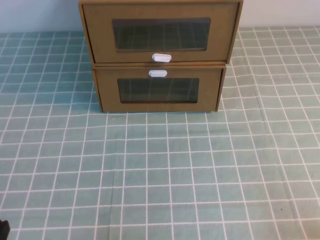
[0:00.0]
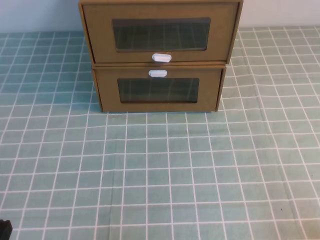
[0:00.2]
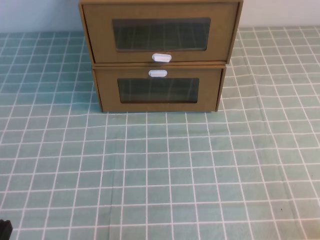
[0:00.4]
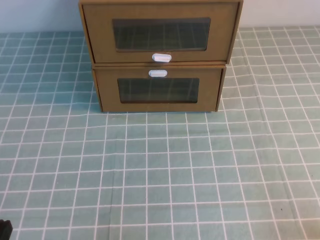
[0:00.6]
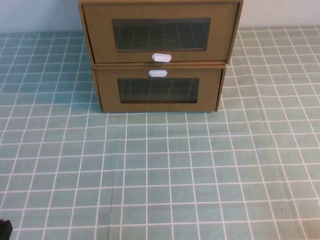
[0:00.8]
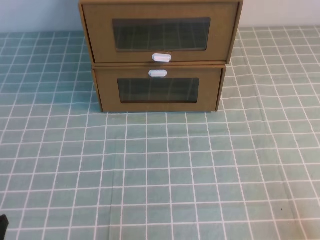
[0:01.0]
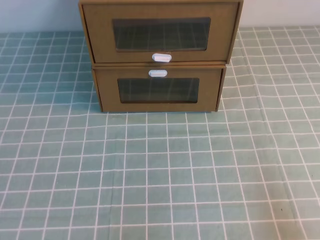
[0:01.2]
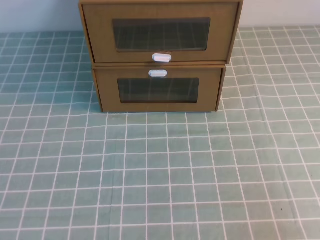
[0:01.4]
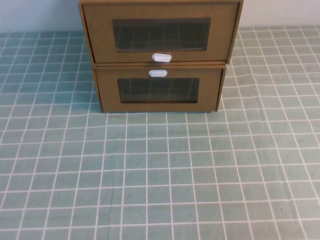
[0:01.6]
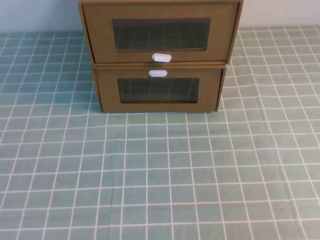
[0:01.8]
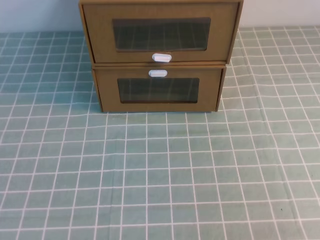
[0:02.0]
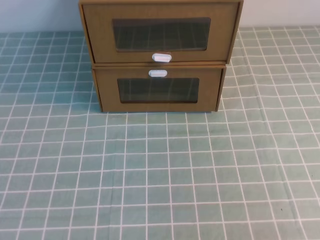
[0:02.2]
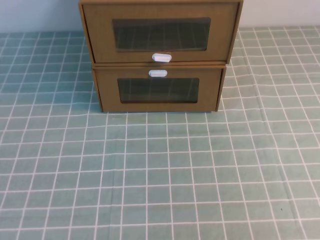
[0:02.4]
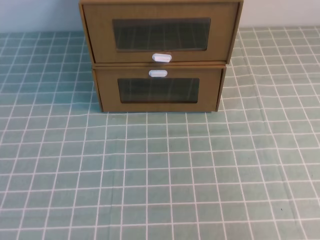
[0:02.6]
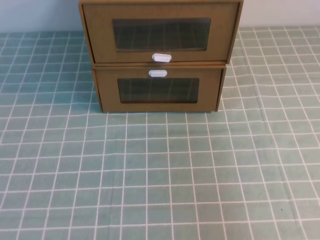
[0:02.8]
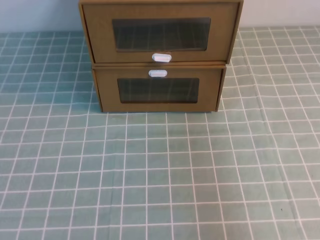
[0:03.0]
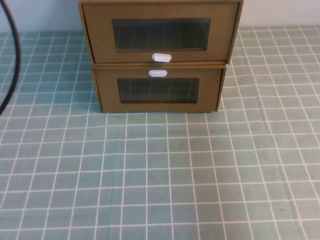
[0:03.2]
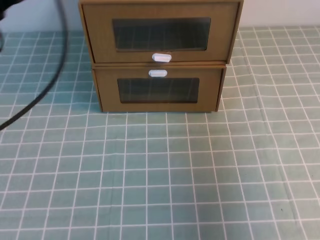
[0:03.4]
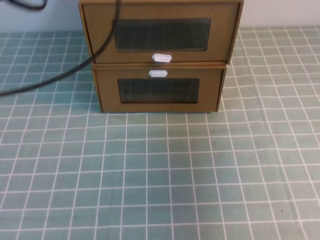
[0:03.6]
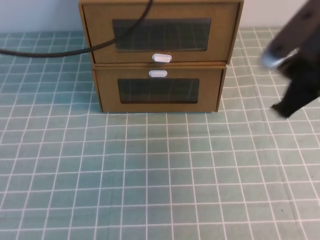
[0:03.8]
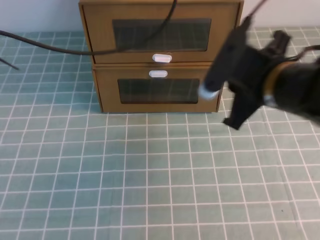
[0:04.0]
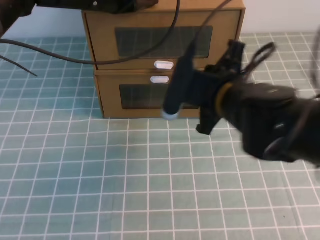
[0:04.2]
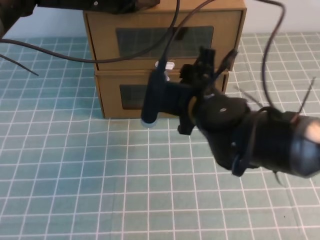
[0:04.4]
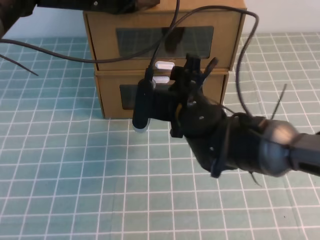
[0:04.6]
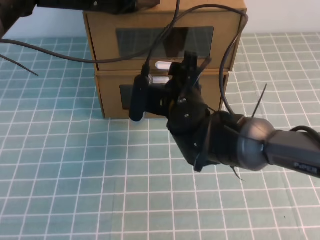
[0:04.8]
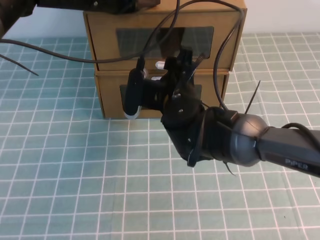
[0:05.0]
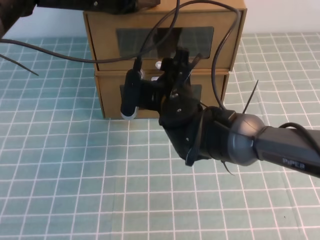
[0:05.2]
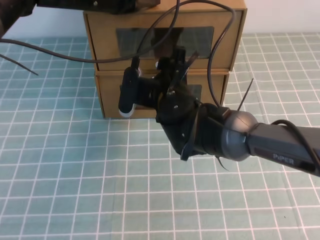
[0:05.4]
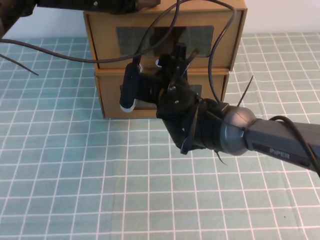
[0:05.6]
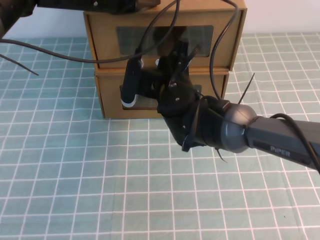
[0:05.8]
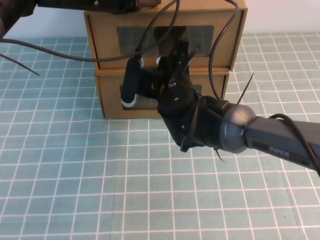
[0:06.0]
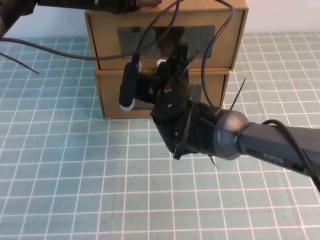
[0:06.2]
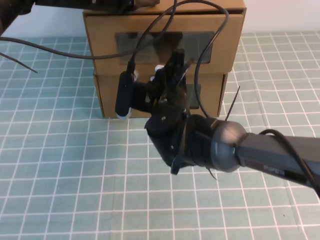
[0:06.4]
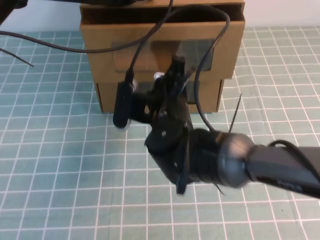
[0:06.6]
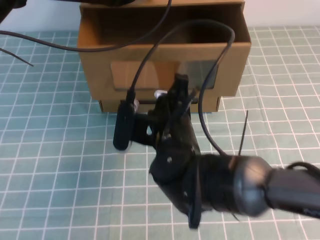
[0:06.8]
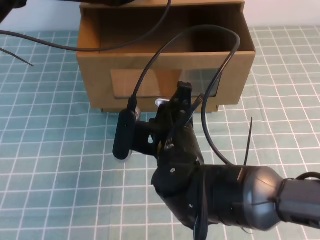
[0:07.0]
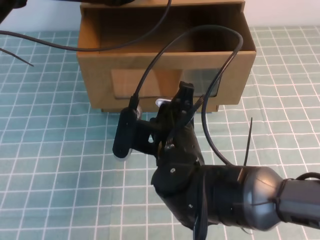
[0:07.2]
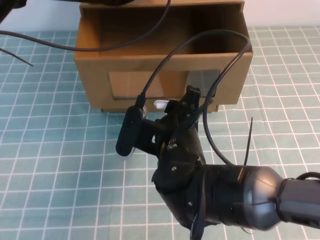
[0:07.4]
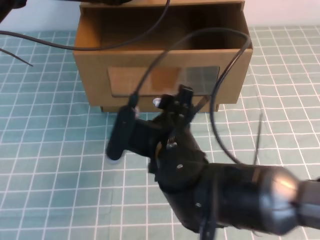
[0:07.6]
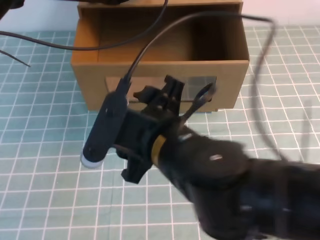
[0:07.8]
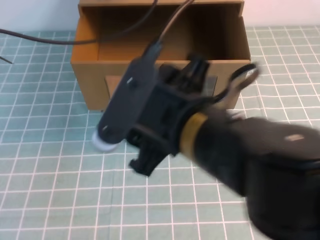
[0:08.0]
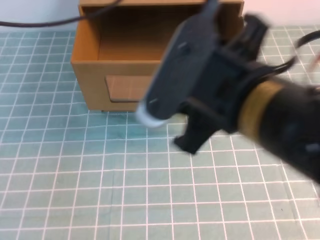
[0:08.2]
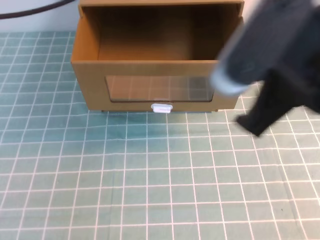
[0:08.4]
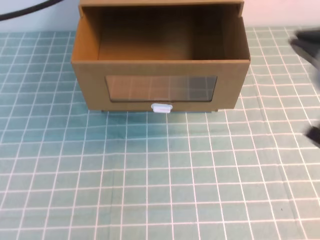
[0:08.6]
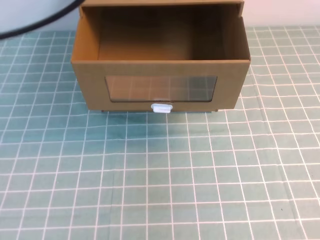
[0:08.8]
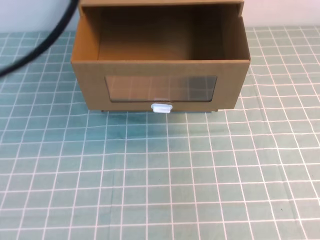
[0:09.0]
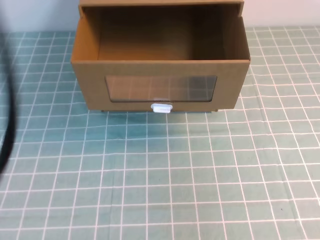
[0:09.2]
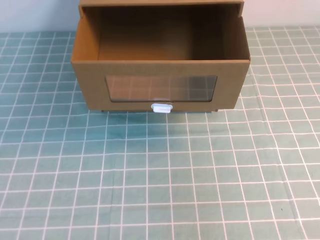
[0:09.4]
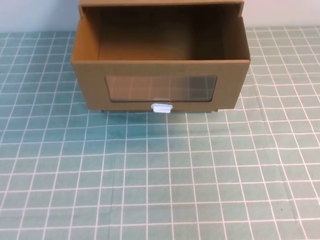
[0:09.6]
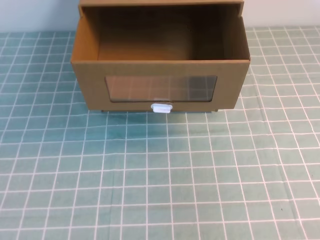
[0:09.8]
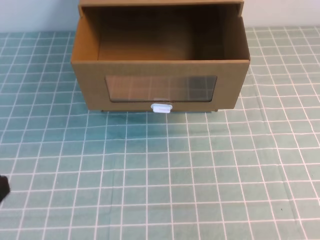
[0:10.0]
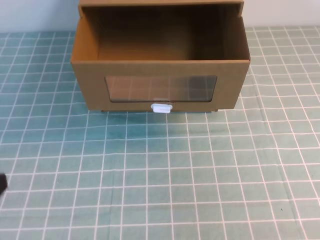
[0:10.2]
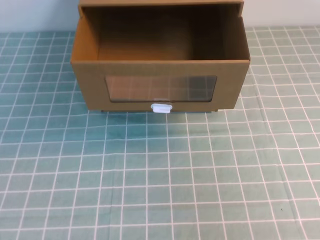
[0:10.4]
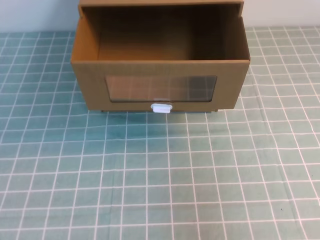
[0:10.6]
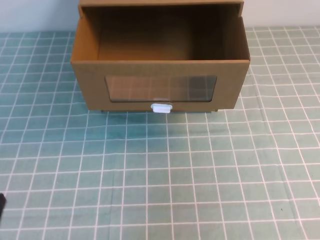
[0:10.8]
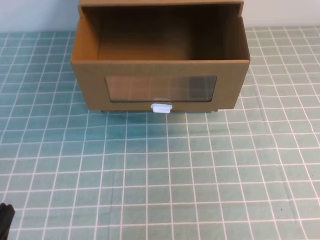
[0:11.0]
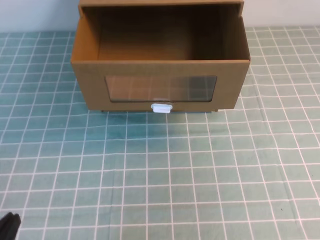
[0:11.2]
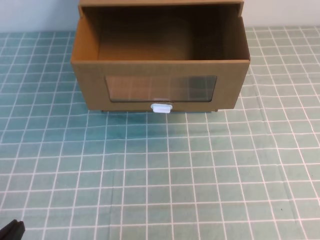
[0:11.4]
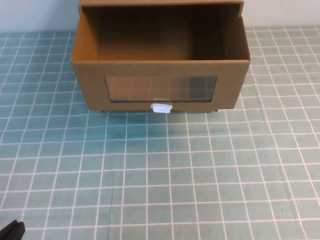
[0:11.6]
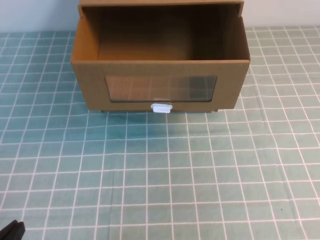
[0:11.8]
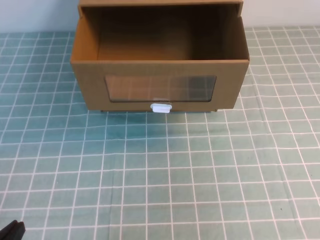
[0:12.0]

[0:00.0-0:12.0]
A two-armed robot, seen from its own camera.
Task of the whole recording: open the shoebox on the cyan tablecloth.
0:03.0 to 0:04.4: The right gripper travels to the left, forward and downward by about 35 cm, and opens up. The left gripper goes approximately 30 cm forward and to the right.
0:04.4 to 0:06.0: The right gripper travels forward and to the left by roughly 10 cm, and closes up.
0:06.0 to 0:07.6: The right gripper moves backward, about 15 cm, and opens up.
0:07.6 to 0:09.0: The left gripper moves backward and upward, approximately 30 cm, while the right gripper heads to the right, backward and upward, covering some 30 cm, and closes.
0:09.0 to 0:10.4: The left gripper goes some 25 cm downward and backward.

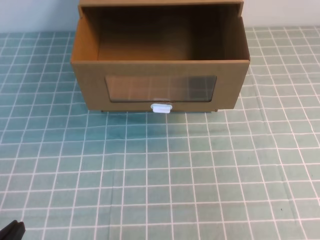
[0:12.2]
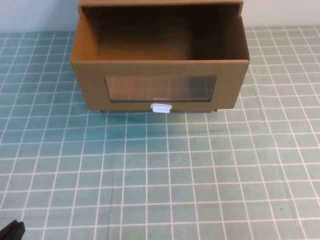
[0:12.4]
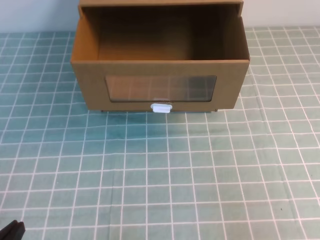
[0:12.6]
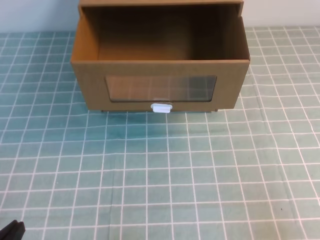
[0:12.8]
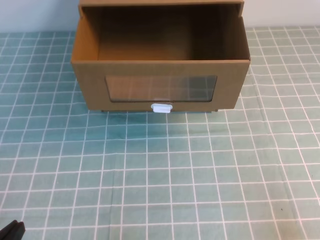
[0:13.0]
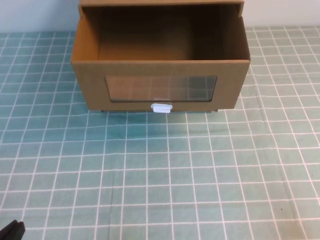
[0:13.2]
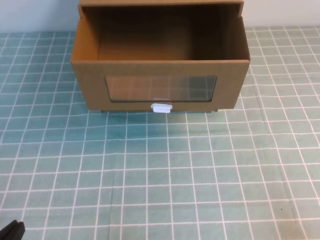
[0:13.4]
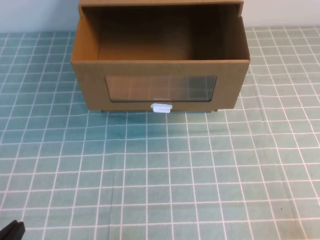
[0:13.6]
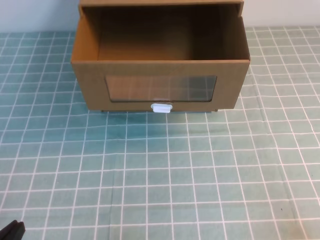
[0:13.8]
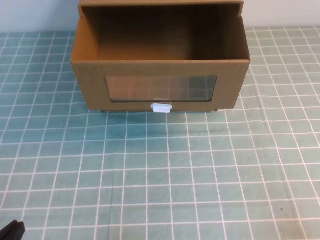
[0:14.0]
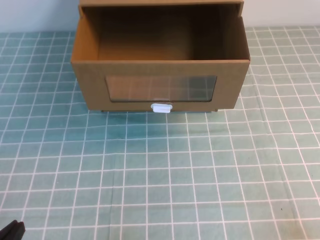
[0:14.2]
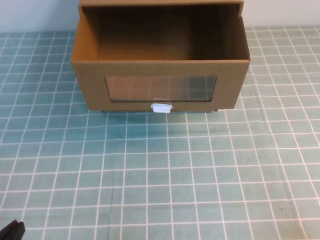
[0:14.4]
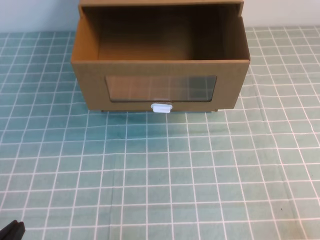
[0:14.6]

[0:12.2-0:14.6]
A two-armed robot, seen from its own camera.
Task of the whole recording: open the shoebox on the cyan tablecloth.
0:12.2 to 0:13.4: The right gripper is displaced downward by some 20 cm.

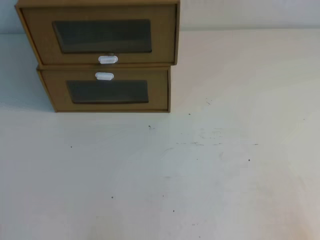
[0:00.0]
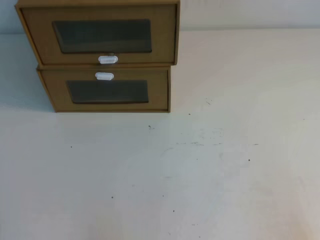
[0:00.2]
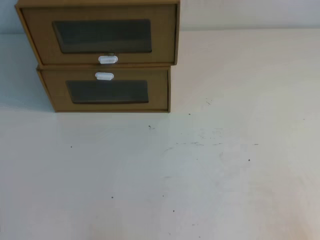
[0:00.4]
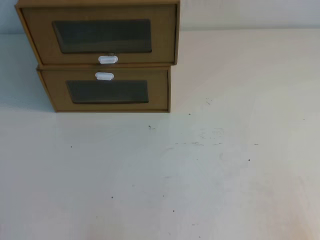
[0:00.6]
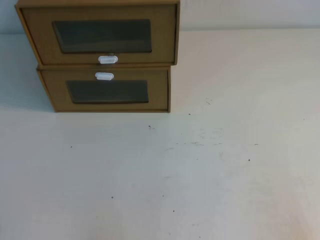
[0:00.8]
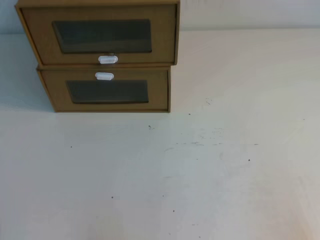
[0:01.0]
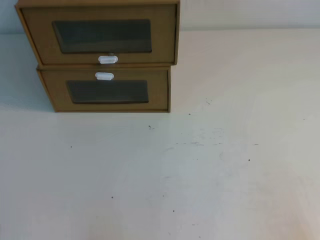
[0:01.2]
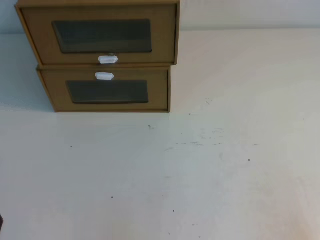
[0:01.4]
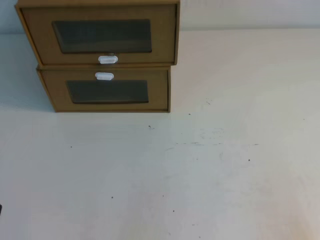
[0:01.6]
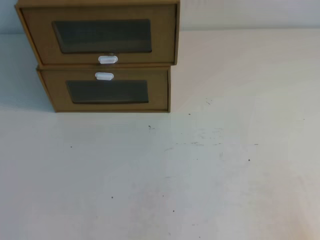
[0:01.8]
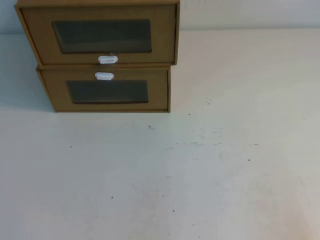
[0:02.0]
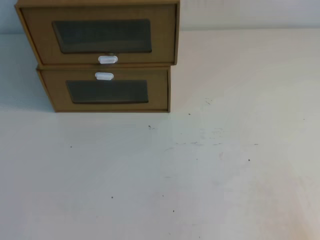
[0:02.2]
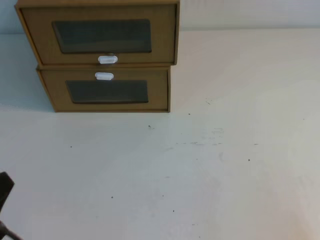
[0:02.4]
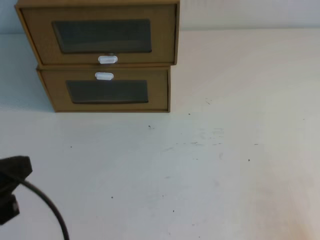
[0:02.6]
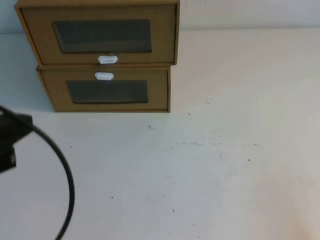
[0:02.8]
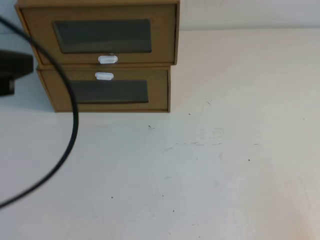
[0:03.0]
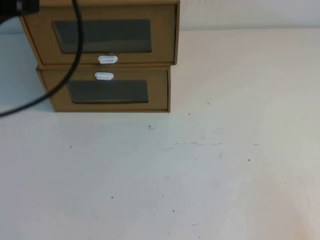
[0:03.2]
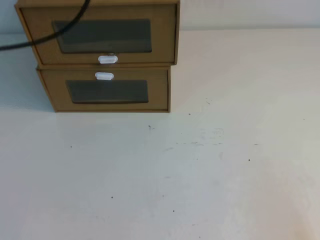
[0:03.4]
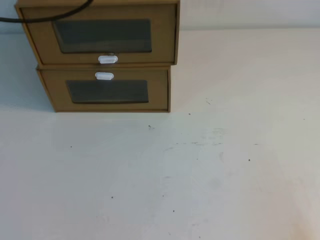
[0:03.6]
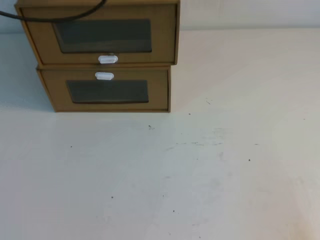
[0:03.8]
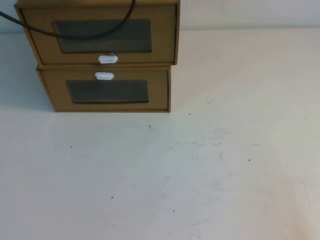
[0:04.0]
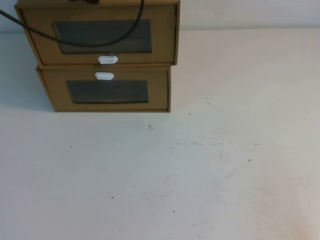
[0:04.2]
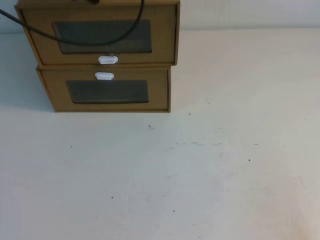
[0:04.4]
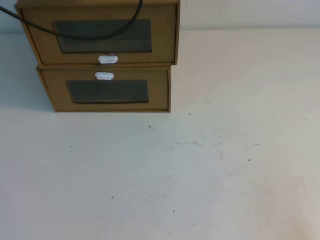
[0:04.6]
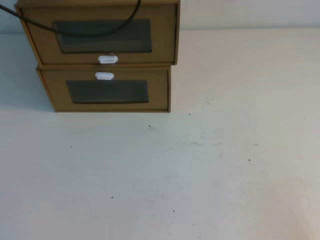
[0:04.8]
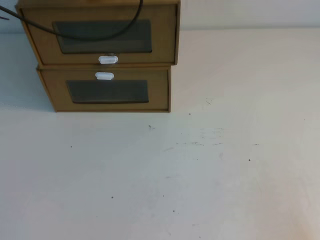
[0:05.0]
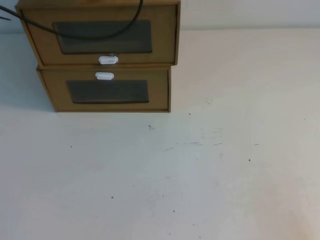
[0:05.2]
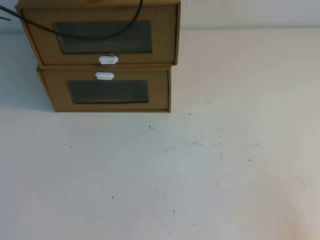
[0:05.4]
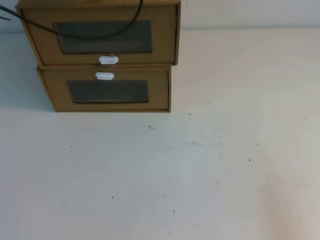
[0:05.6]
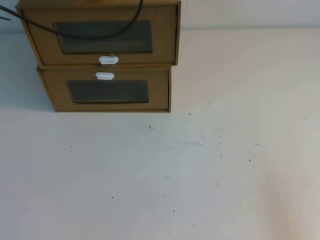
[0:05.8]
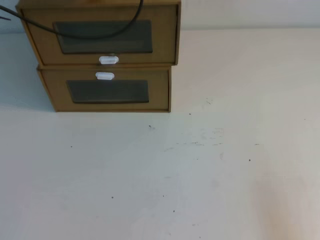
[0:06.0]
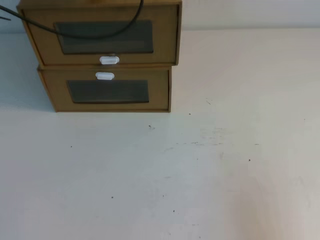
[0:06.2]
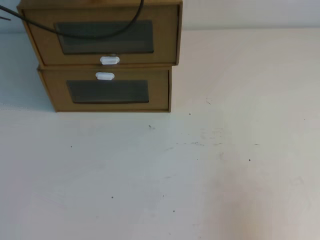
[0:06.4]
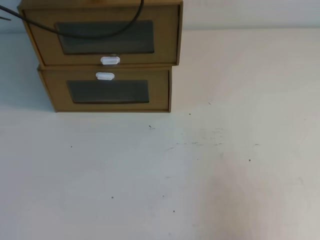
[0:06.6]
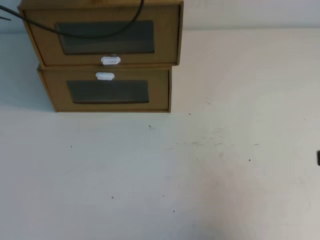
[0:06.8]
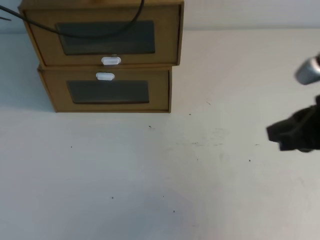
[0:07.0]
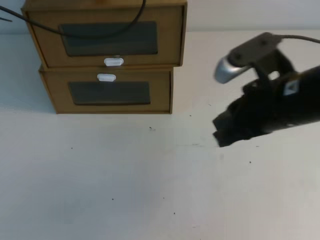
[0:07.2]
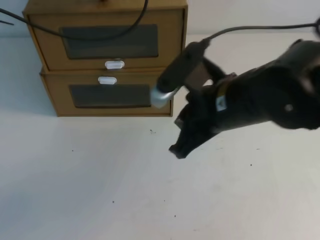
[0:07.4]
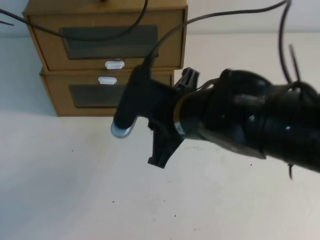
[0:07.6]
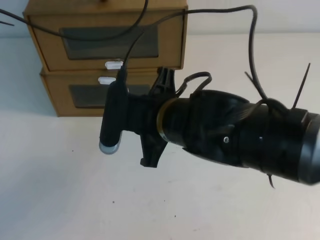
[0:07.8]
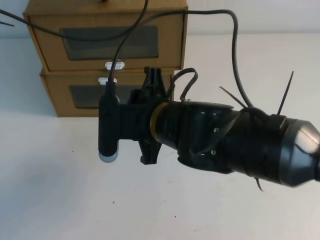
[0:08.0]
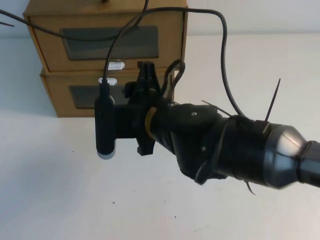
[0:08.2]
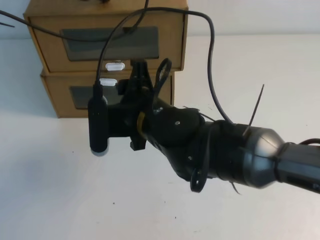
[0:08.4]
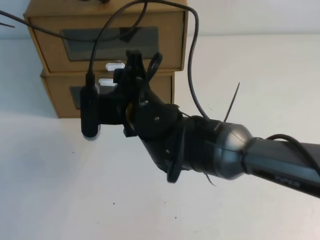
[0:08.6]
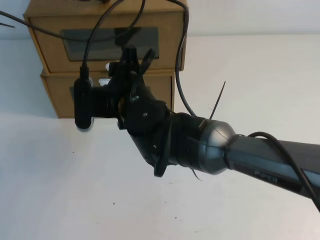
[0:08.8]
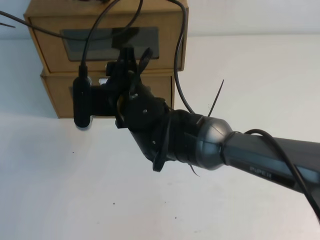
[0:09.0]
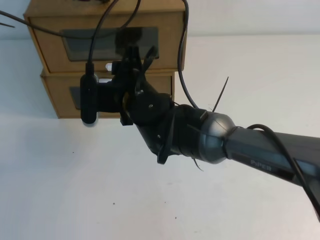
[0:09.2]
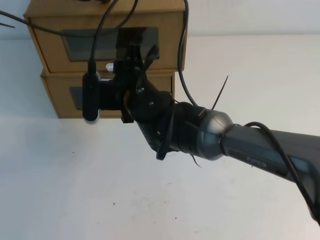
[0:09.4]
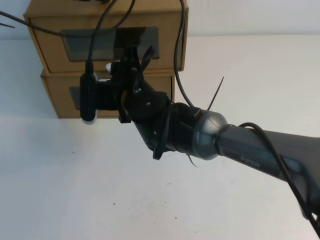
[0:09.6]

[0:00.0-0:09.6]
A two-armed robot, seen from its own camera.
Task of the whole recording: open the shoebox on the table.
0:01.6 to 0:03.2: The left gripper is displaced upward and forward by some 30 cm.
0:03.2 to 0:04.8: The left gripper moves forward, roughly 20 cm.
0:04.8 to 0:06.4: The right gripper travels upward by roughly 10 cm.
0:06.4 to 0:08.0: The right gripper shifts approximately 35 cm to the left and forward, and opens its fingers.
0:08.0 to 0:09.6: The right gripper heads forward and to the left, covering approximately 10 cm.
